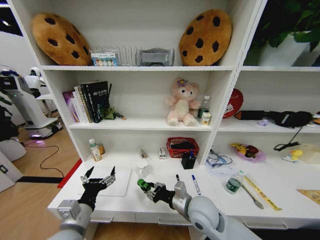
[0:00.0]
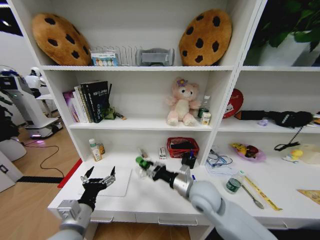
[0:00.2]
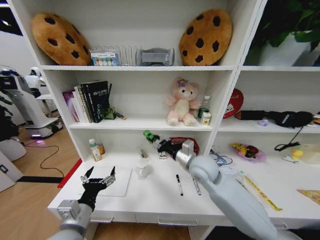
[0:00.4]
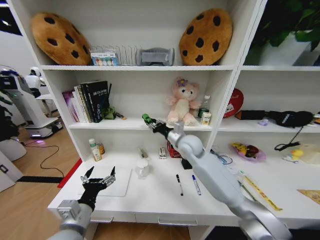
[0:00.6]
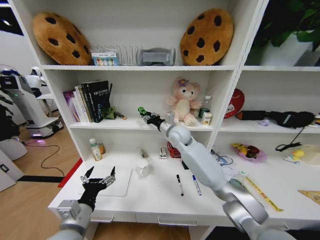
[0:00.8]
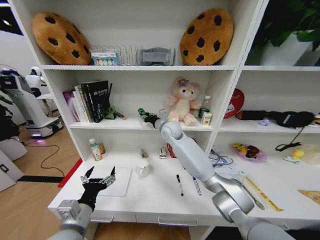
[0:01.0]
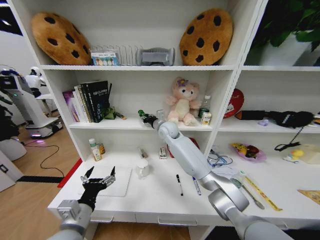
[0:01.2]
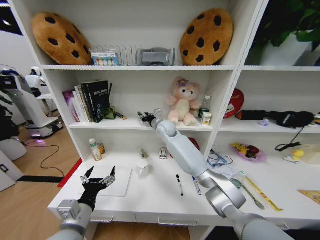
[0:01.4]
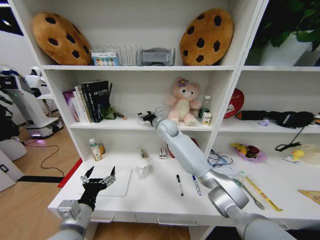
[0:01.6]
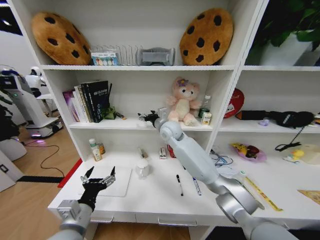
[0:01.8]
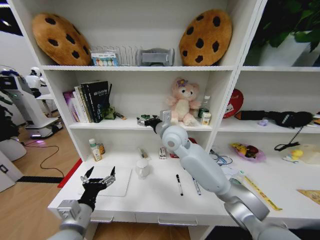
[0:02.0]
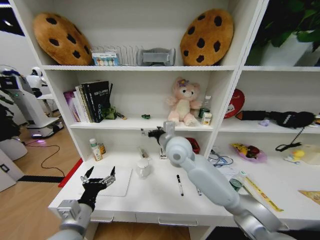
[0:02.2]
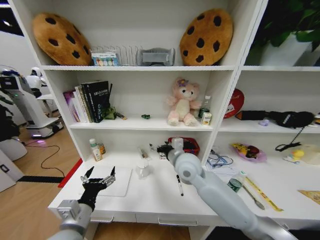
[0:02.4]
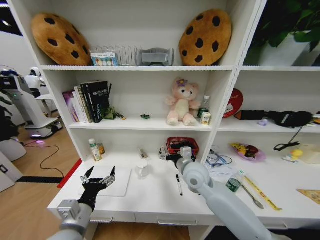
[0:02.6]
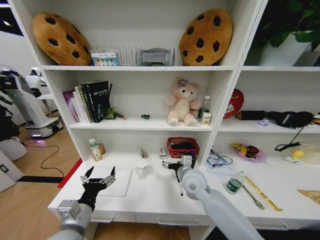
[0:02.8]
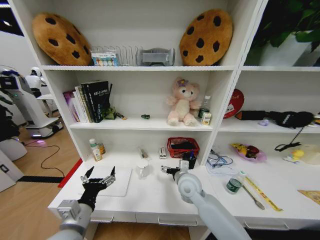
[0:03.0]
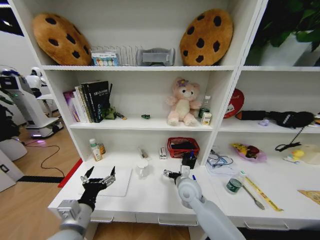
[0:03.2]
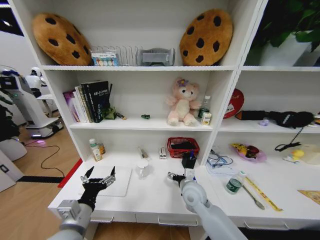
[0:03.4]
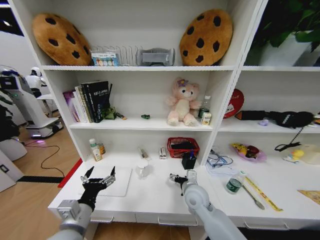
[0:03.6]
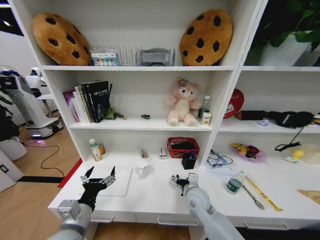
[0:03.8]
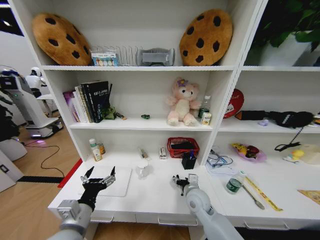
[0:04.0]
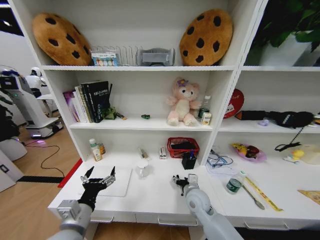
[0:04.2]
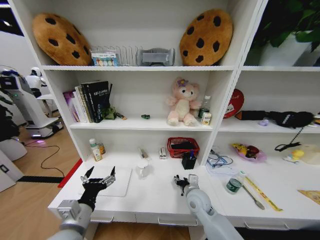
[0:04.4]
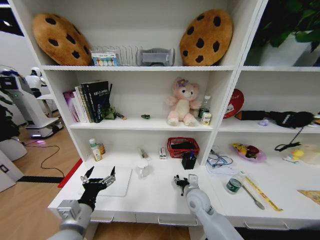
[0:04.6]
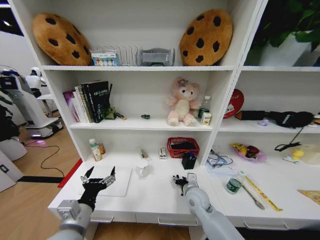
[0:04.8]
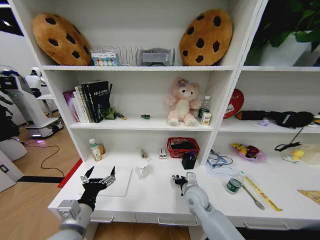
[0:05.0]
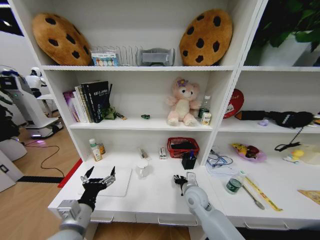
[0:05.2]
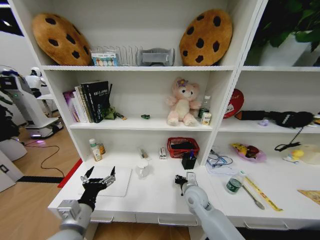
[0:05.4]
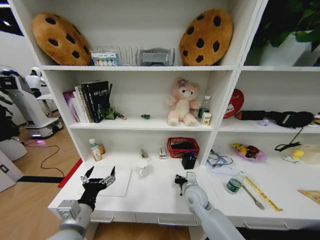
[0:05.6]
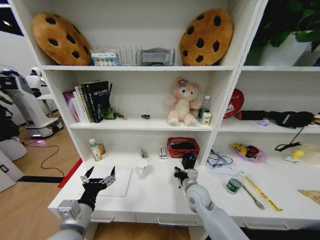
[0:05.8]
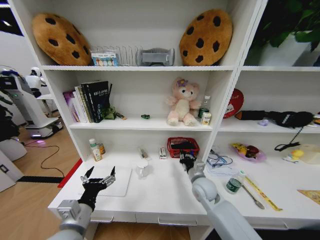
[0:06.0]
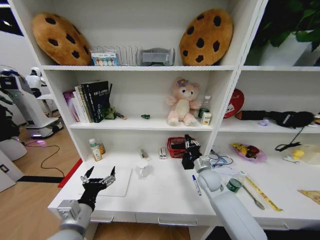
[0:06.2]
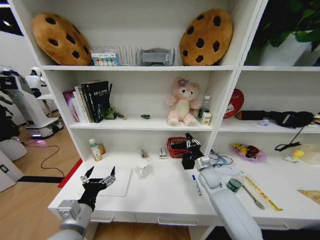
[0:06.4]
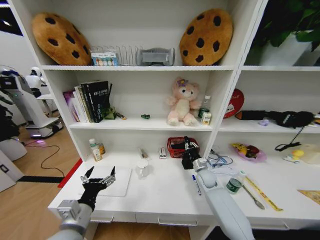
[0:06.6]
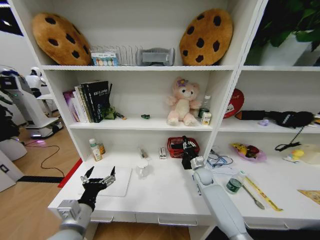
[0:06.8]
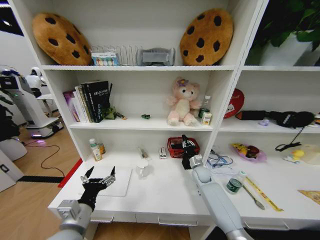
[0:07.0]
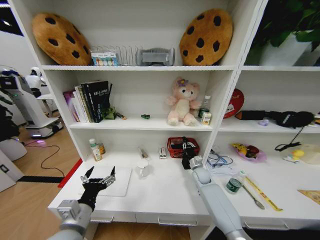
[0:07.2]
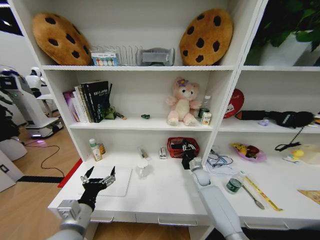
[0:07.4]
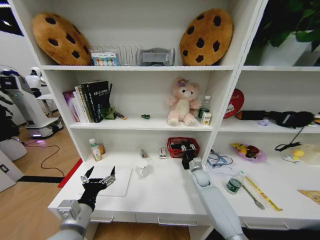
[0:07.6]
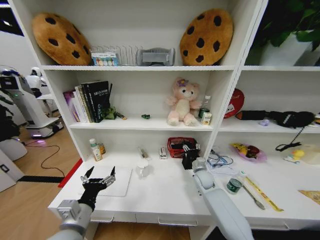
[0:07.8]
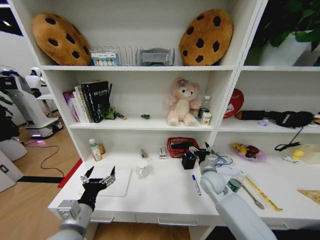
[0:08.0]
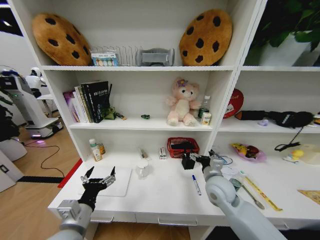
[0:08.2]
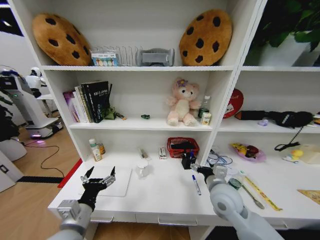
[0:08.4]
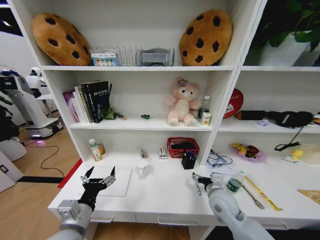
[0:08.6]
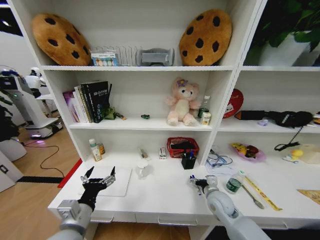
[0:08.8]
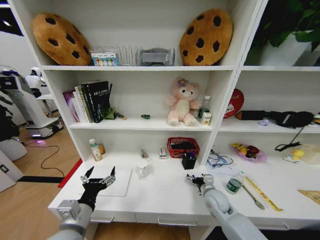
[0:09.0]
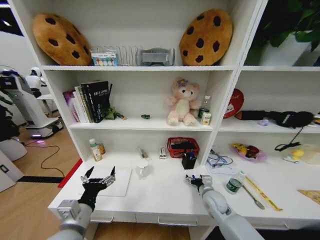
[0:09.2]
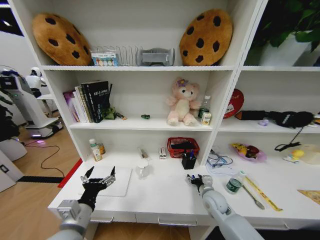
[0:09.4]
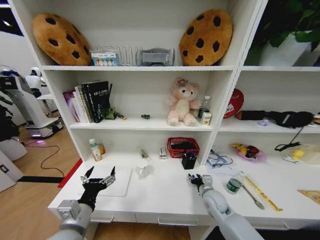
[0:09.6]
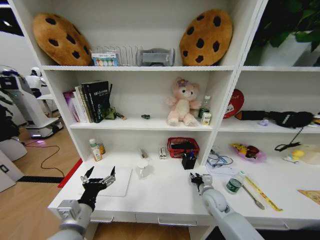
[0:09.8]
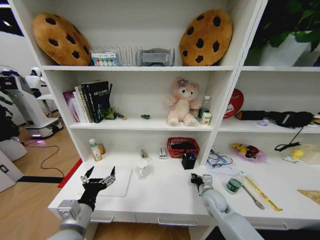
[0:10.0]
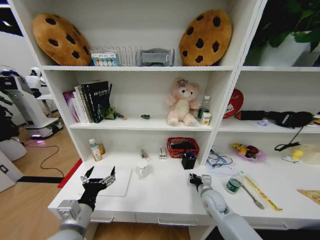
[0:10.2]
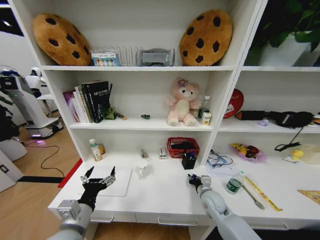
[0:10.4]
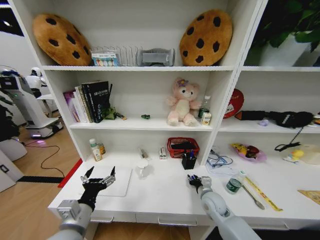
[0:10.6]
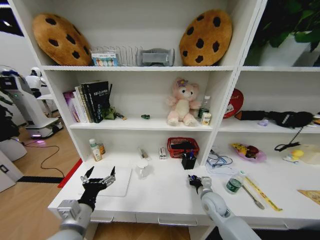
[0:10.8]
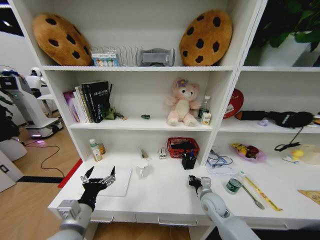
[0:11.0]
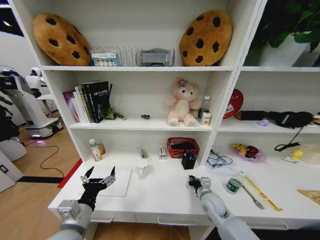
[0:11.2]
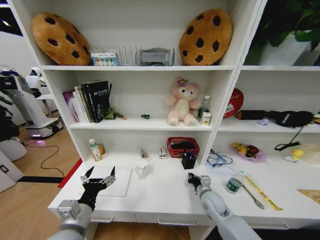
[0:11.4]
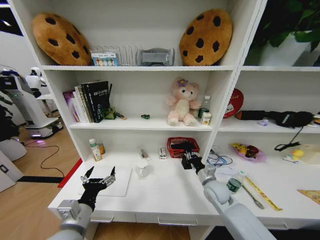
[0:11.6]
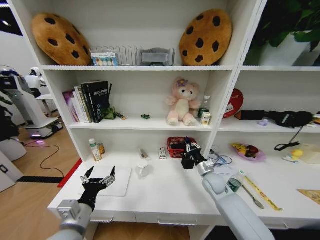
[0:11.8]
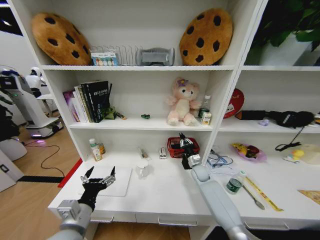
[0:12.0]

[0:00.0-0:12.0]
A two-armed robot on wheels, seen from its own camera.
Task of the whole recording: Organize the objects on the table.
0:00.0 to 0:01.6: The right gripper is displaced forward and upward by approximately 35 cm.
0:01.6 to 0:03.0: The right gripper is displaced backward and downward by about 25 cm.
0:03.0 to 0:04.4: The right gripper goes about 5 cm downward.
0:04.4 to 0:06.0: The right gripper closes its fingers.
0:06.0 to 0:07.6: The right gripper goes roughly 15 cm forward, downward and to the right.
0:07.6 to 0:09.0: The right gripper is displaced backward by about 15 cm, and opens up.
0:09.0 to 0:10.4: The right gripper closes its fingers.
0:10.4 to 0:12.0: The right gripper shifts approximately 15 cm forward.

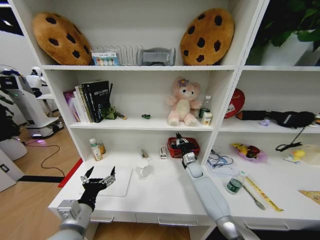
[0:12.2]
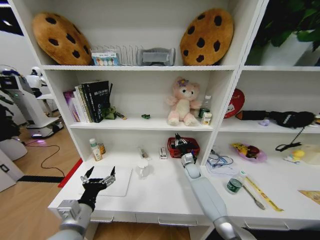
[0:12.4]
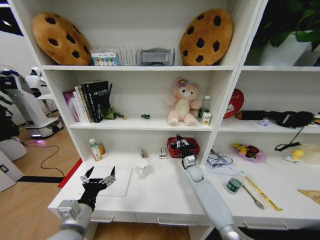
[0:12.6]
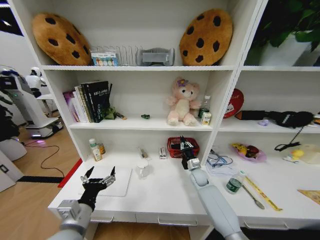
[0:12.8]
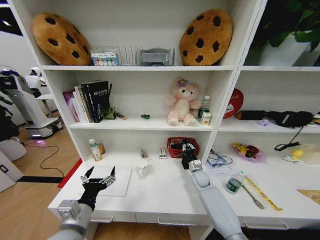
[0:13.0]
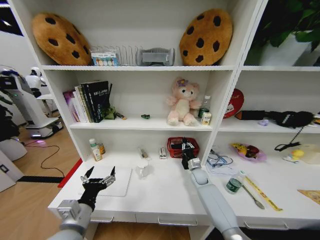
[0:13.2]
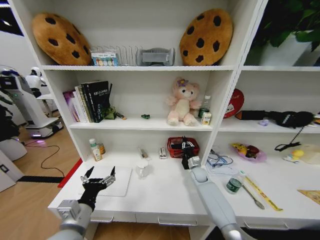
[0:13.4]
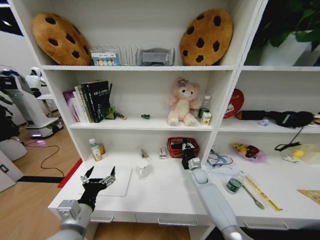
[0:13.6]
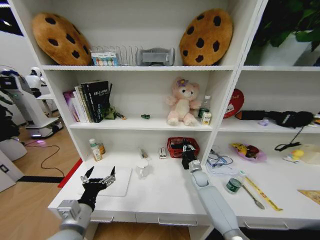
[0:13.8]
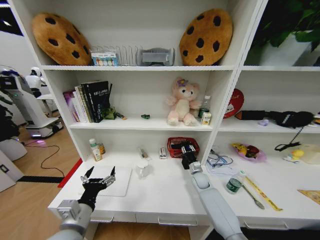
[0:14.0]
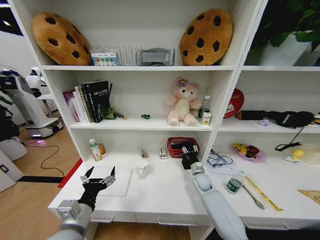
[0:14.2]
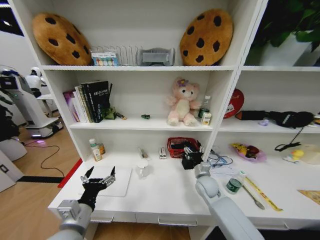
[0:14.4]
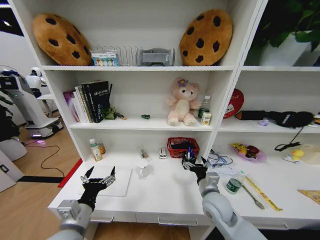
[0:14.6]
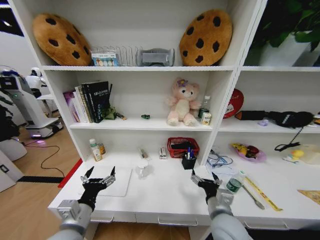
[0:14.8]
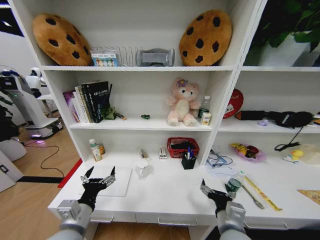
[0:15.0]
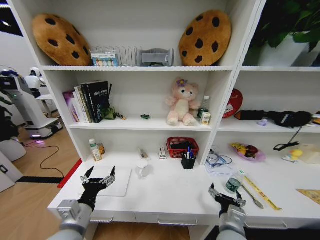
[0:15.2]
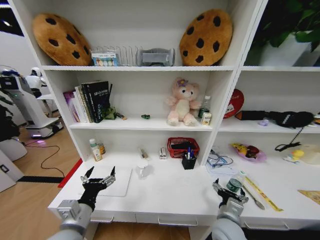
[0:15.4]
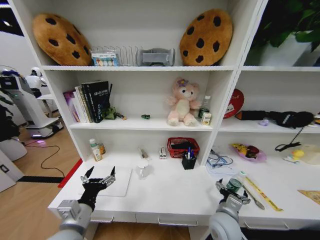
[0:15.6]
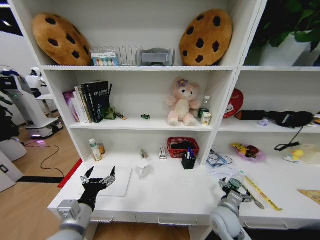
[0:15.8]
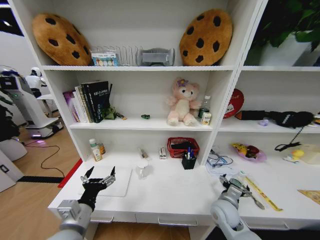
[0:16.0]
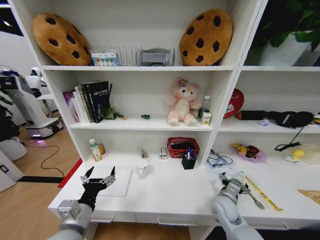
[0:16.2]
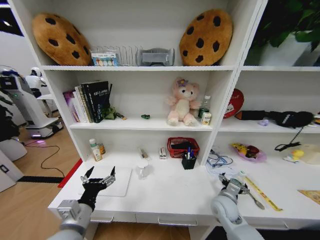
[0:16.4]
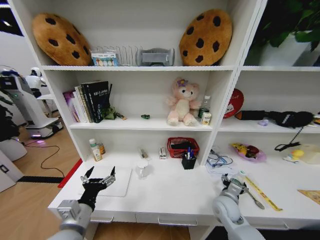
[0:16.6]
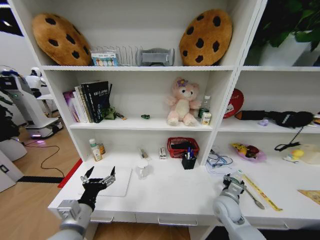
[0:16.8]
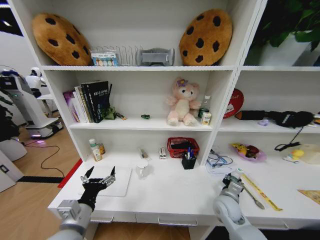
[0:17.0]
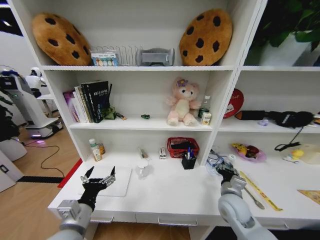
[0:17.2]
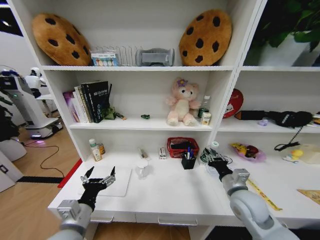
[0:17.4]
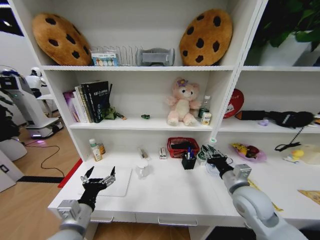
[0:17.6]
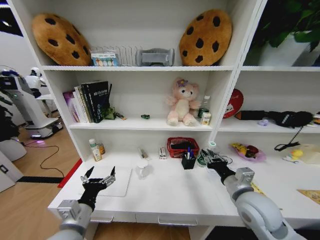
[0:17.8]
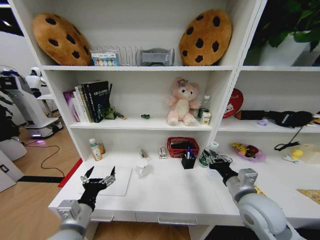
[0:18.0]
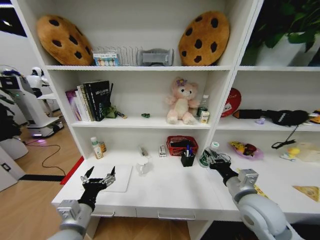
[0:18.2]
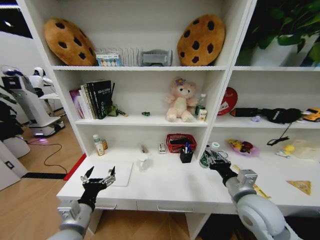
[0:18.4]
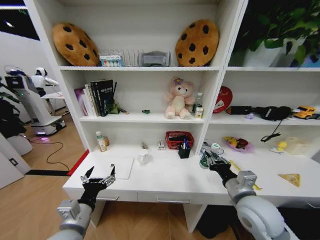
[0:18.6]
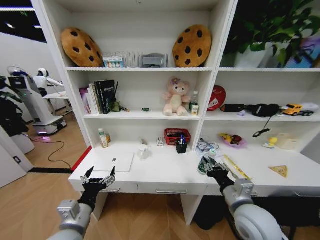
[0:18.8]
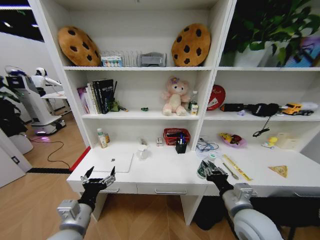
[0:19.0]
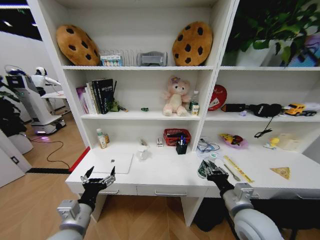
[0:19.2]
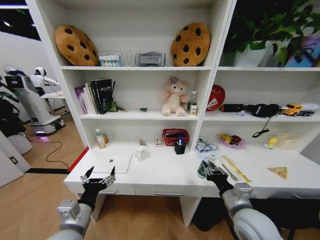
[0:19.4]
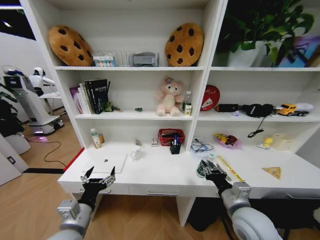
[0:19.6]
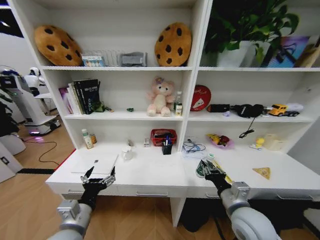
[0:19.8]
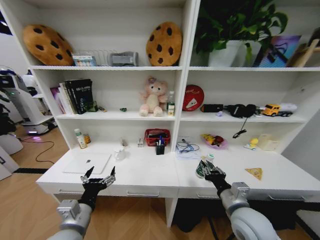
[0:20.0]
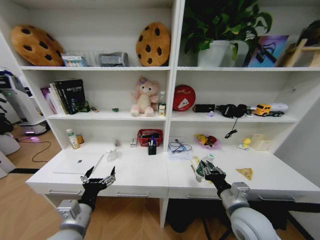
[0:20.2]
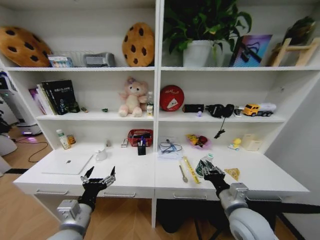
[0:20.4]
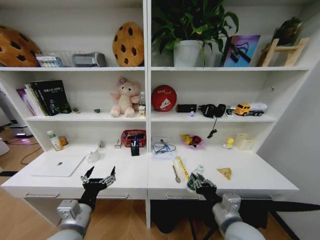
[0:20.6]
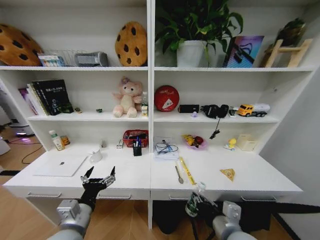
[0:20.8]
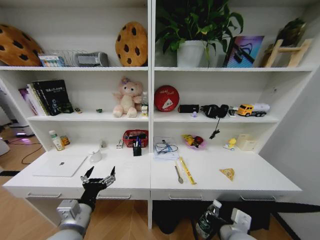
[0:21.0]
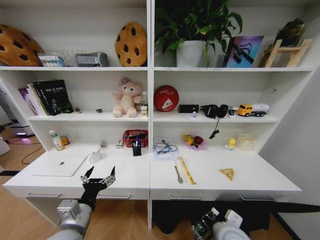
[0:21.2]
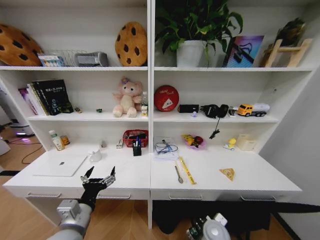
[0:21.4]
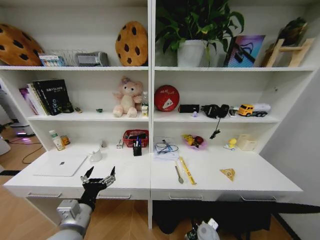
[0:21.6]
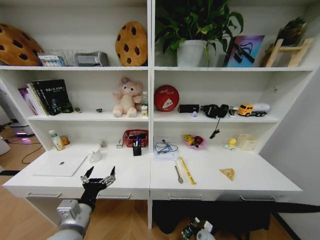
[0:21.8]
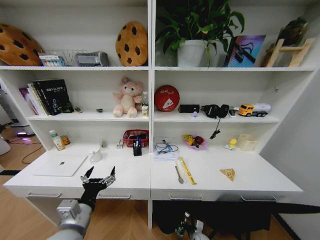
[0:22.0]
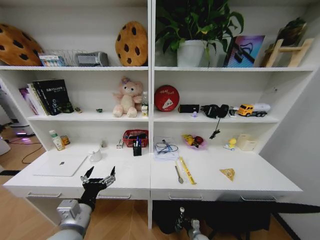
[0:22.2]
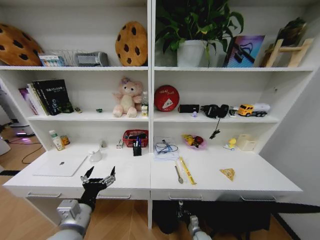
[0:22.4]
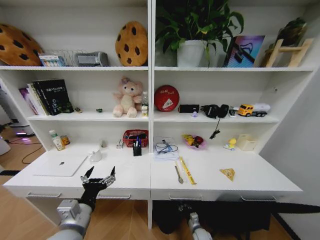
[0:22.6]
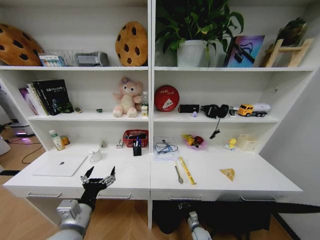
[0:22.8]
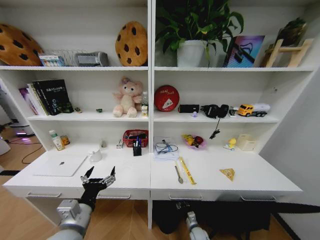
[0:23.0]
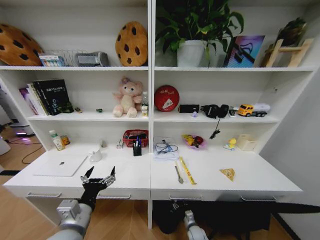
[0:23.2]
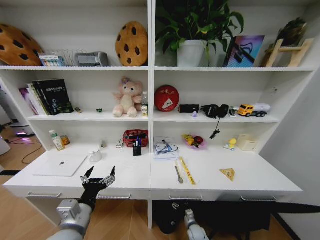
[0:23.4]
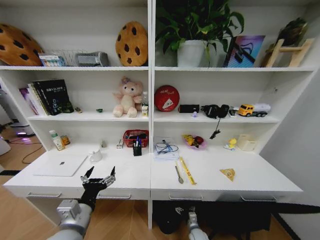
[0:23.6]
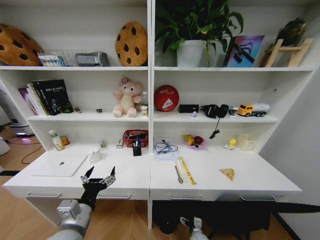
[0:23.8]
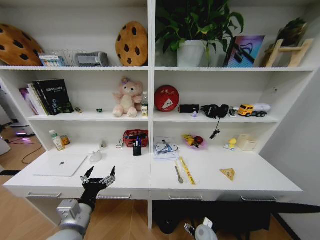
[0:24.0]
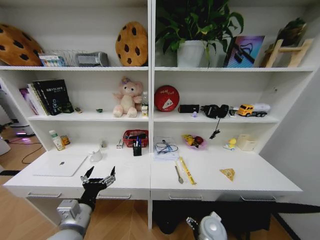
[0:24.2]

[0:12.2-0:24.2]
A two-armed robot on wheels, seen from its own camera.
Task of the whole recording: Organize the objects on the table.
0:12.2 to 0:13.8: The right gripper moves roughly 5 cm.
0:13.8 to 0:15.2: The right gripper moves backward and upward, roughly 35 cm, and opens up.
0:15.2 to 0:16.6: The right gripper goes approximately 15 cm forward, to the right and downward.
0:16.6 to 0:18.2: The right gripper moves upward, about 15 cm, and closes.
0:19.8 to 0:21.2: The right gripper moves approximately 5 cm.
0:21.2 to 0:22.6: The right gripper goes some 40 cm downward.
0:22.6 to 0:24.2: The right gripper is displaced upward by approximately 25 cm, and opens its fingers.
